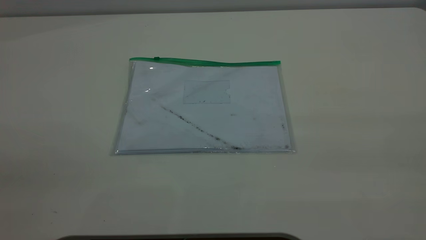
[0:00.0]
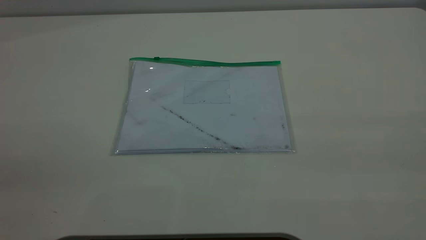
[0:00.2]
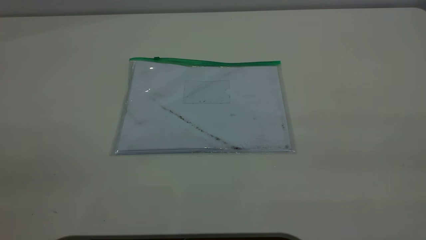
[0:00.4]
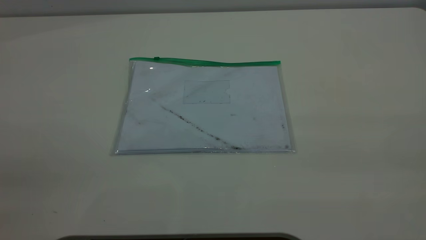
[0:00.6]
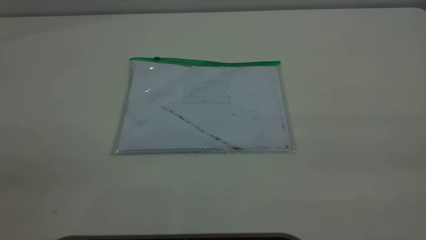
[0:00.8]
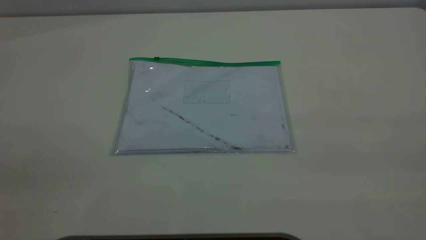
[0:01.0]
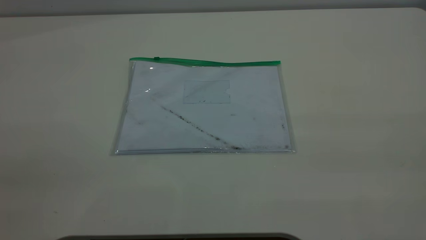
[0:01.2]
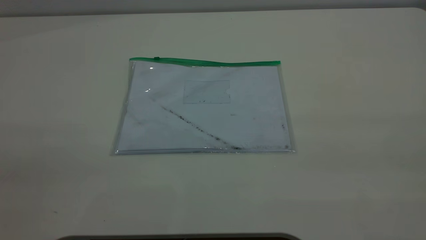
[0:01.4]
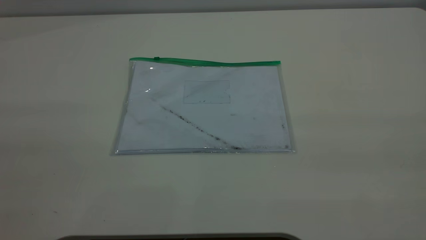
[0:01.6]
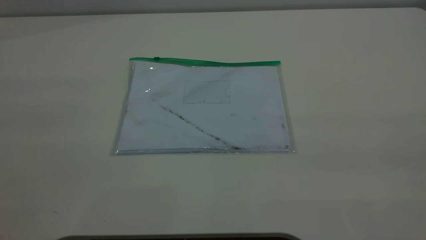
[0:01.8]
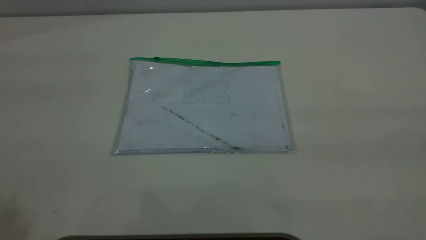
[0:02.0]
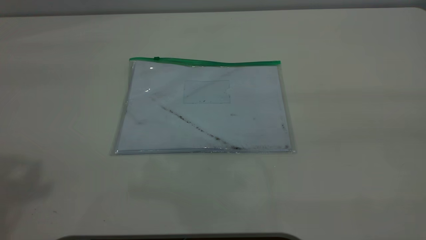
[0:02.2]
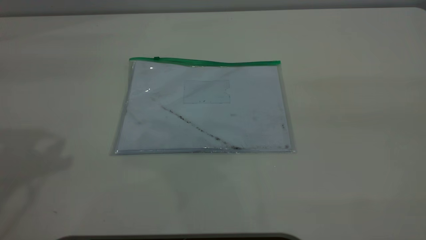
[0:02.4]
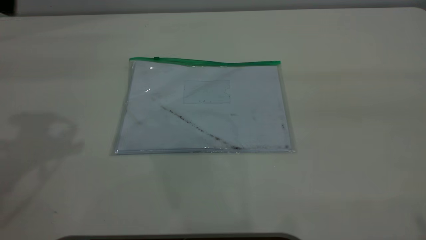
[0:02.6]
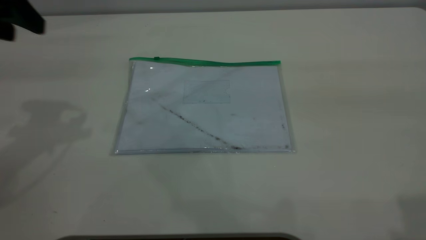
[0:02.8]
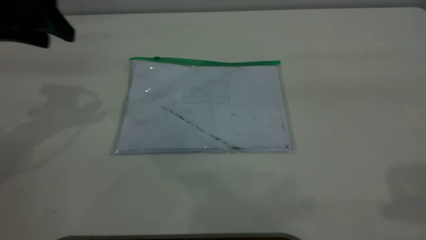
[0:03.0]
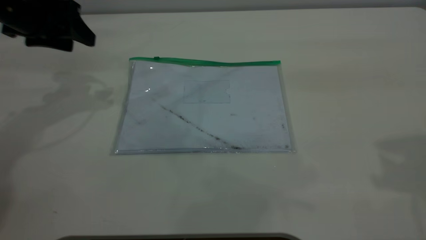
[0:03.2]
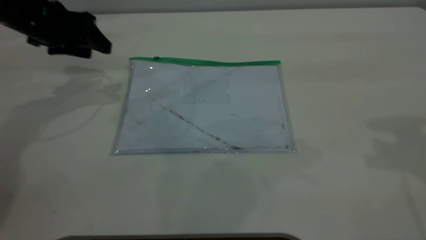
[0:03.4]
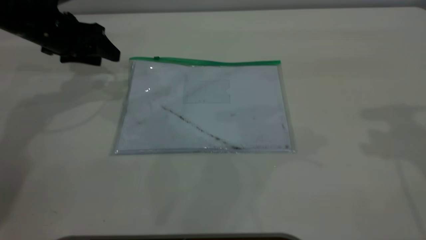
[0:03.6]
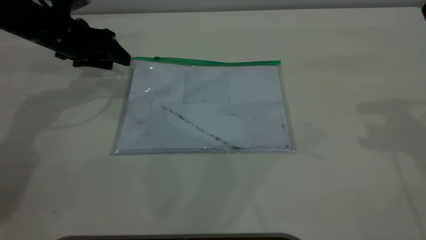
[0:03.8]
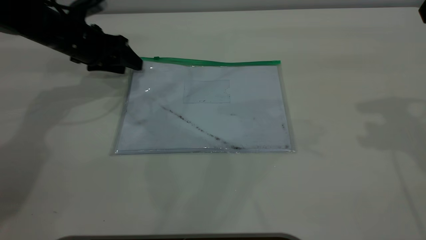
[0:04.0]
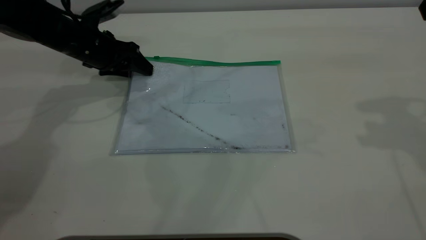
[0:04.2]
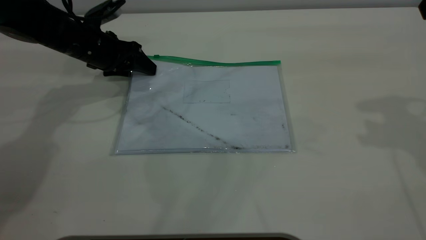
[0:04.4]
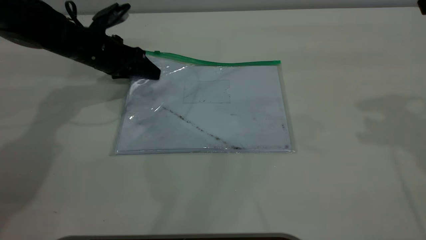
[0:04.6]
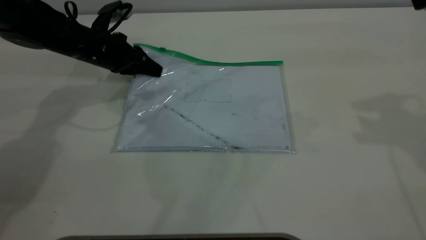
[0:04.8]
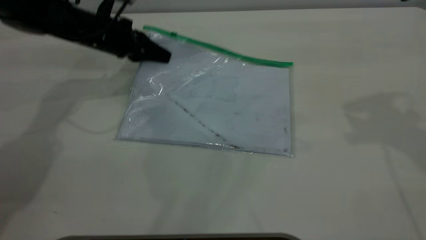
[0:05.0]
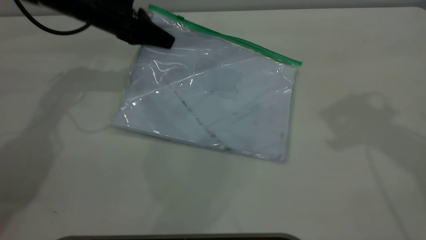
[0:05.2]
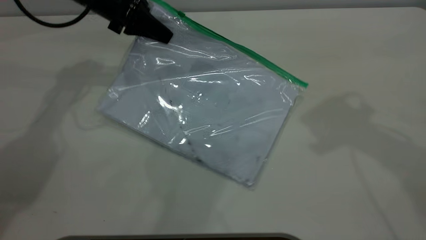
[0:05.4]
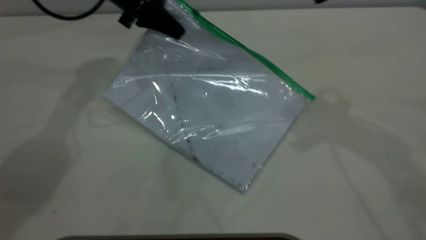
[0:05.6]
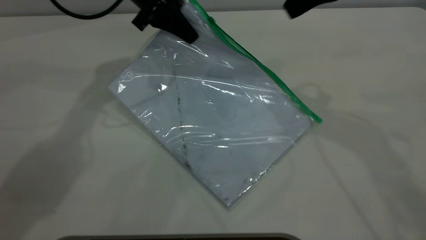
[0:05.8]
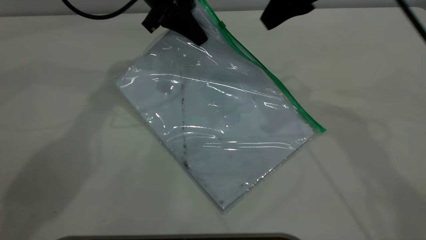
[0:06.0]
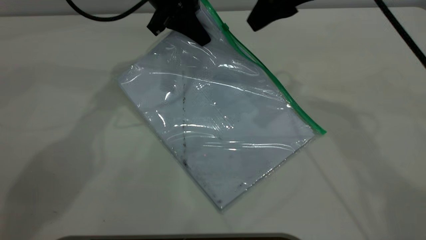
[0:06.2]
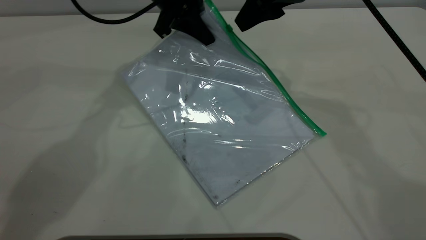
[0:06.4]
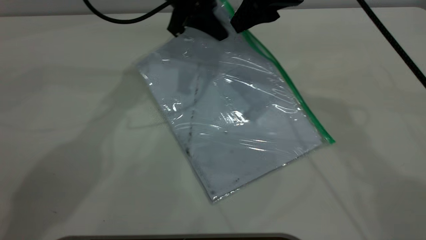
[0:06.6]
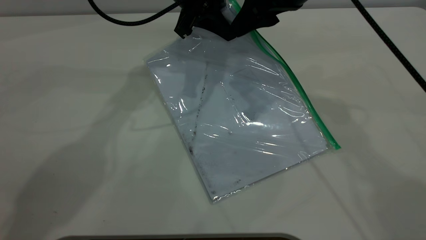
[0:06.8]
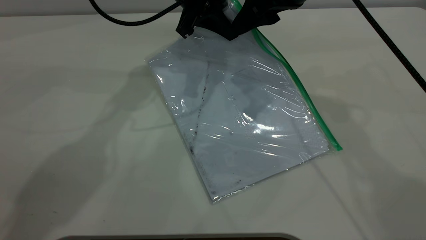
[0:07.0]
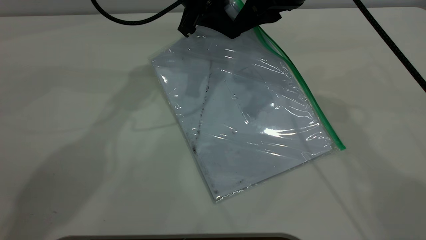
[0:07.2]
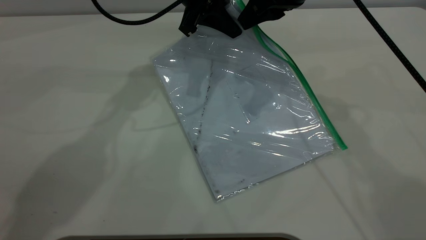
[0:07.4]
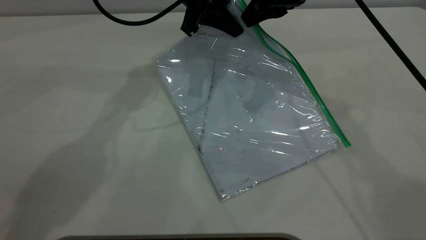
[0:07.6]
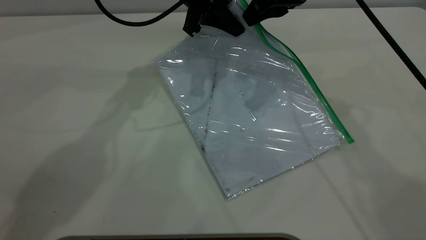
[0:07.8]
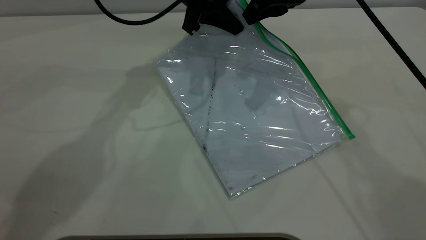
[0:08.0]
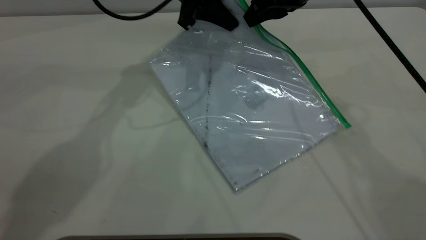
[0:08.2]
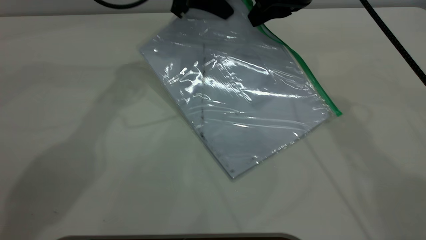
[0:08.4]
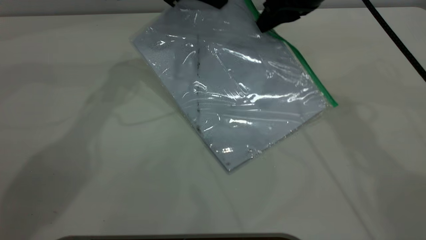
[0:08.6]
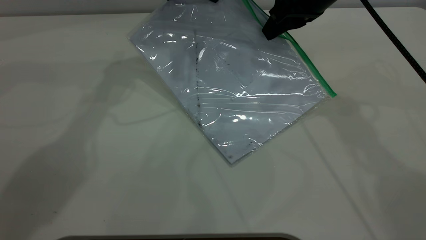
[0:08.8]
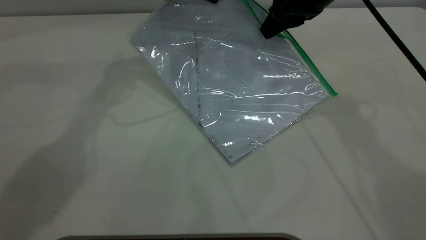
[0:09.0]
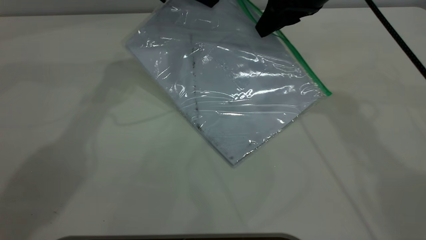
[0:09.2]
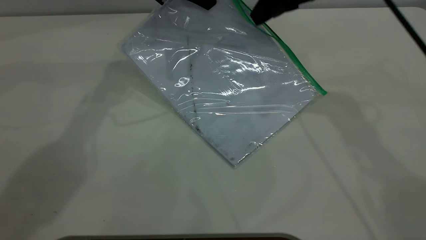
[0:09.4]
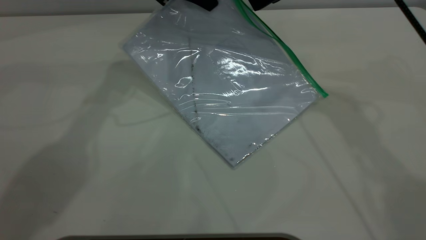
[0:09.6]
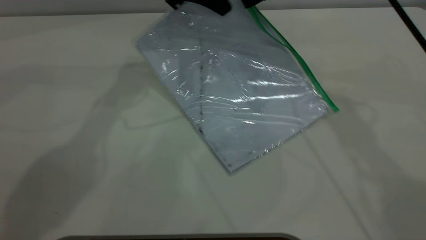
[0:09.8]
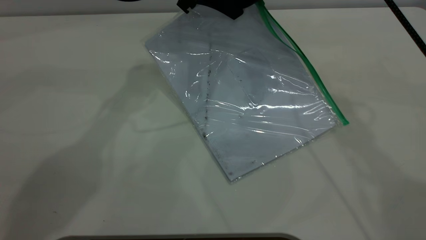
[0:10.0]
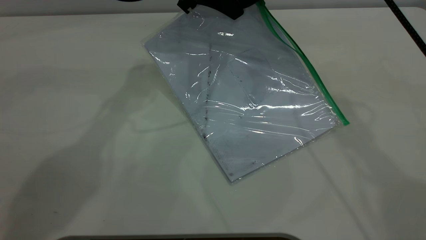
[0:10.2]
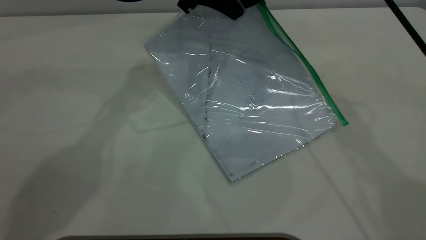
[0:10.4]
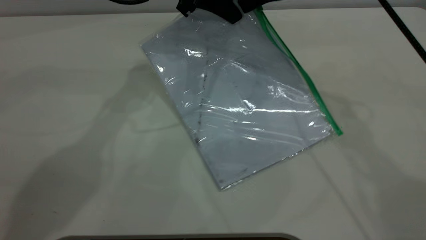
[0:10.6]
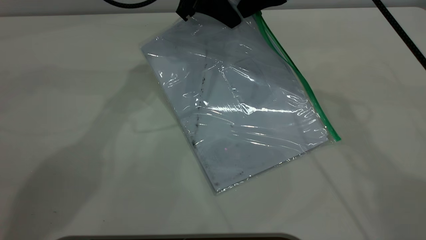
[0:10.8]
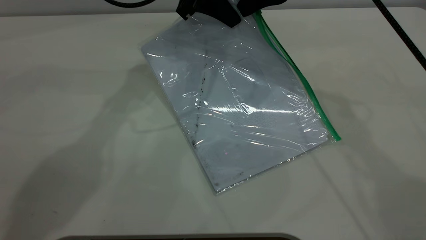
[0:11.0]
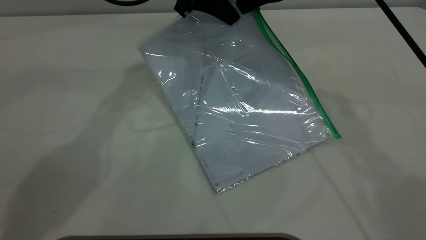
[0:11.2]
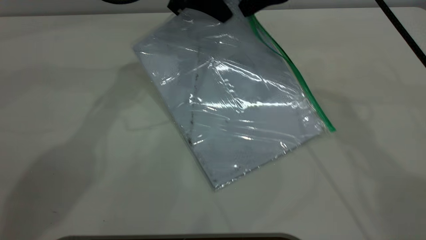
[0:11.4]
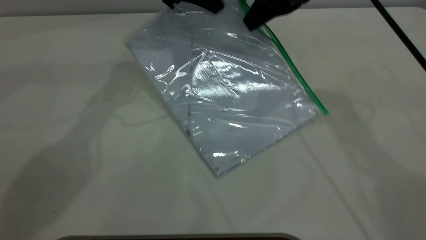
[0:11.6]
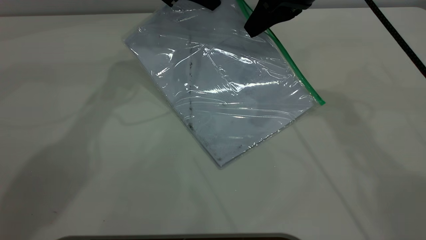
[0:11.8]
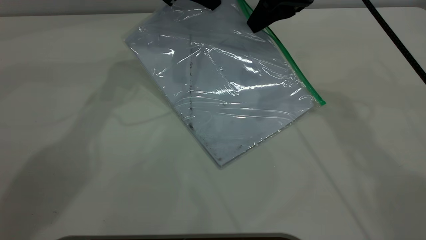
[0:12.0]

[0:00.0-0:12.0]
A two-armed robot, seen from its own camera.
Step, 0.0 to 5.2 s: Pick up the transparent plastic bag with the left gripper.
1.6 to 3.0 s: The left gripper shifts some 40 cm forward and downward.
3.0 to 4.4 s: The right gripper travels forward and downward by about 15 cm; the left gripper is displaced downward, forward and to the right by approximately 20 cm.
4.4 to 6.0 s: The right gripper goes some 15 cm to the left and forward; the left gripper heads to the right and upward, covering about 20 cm, and closes.
6.0 to 7.6 s: The right gripper closes up.
7.6 to 9.0 s: The left gripper changes place by about 5 cm.
9.0 to 10.4 s: The right gripper opens, then closes again.
10.4 to 12.0 s: The grippers move only a little.

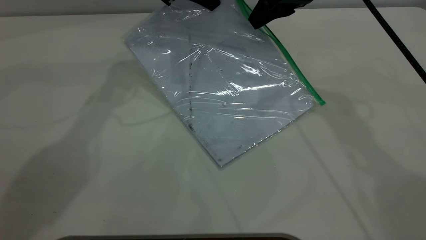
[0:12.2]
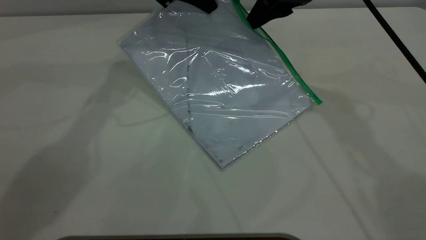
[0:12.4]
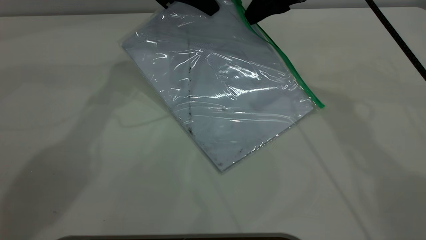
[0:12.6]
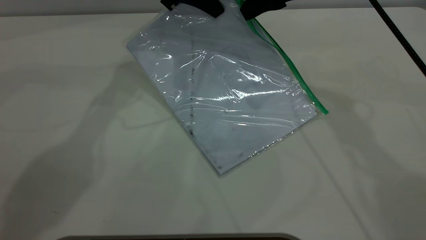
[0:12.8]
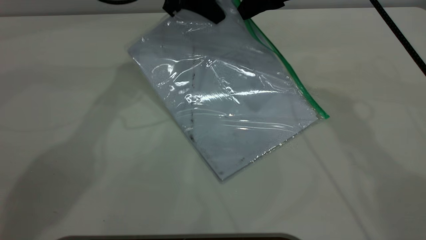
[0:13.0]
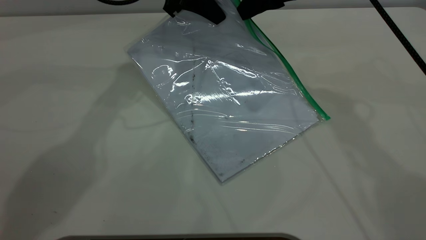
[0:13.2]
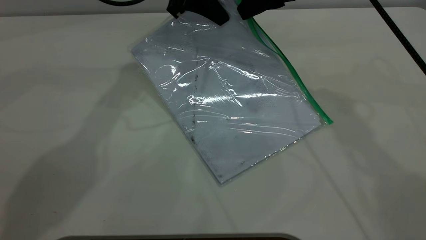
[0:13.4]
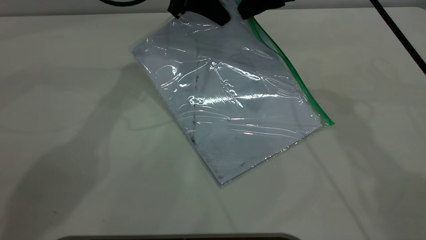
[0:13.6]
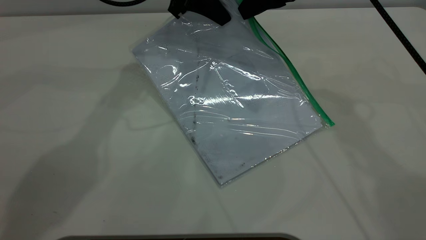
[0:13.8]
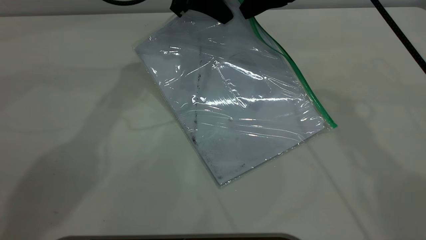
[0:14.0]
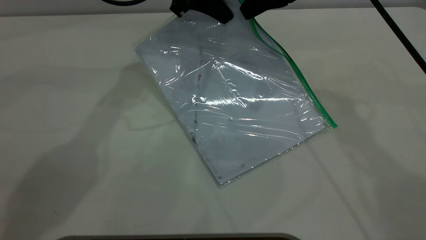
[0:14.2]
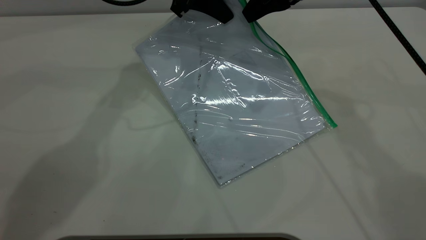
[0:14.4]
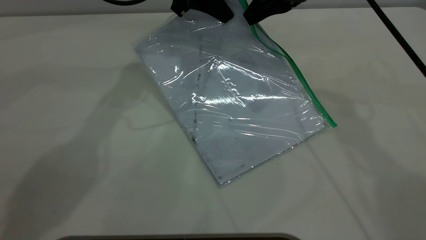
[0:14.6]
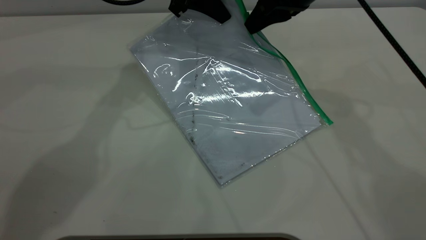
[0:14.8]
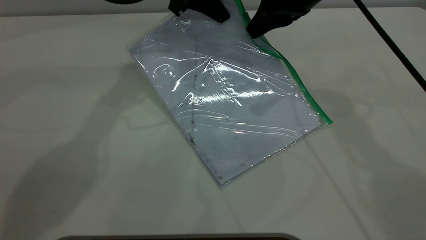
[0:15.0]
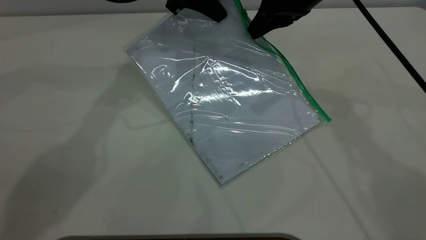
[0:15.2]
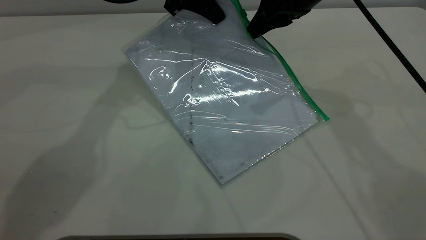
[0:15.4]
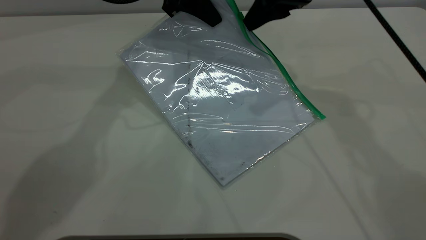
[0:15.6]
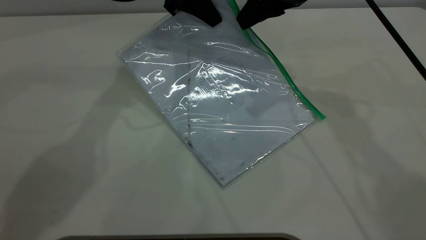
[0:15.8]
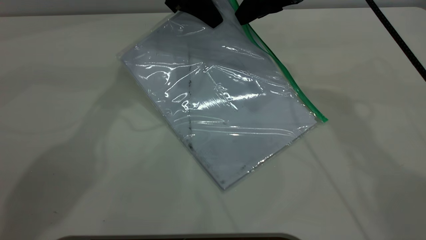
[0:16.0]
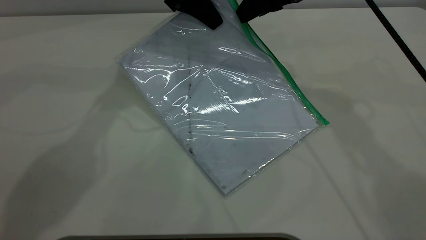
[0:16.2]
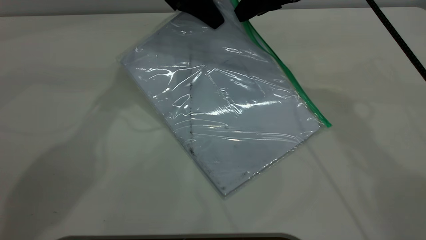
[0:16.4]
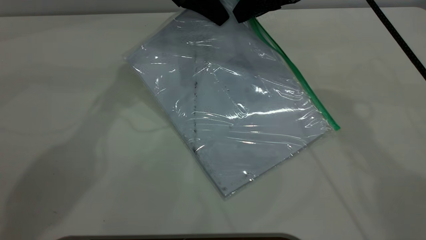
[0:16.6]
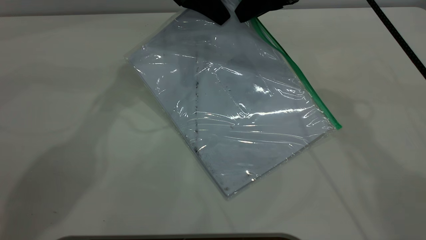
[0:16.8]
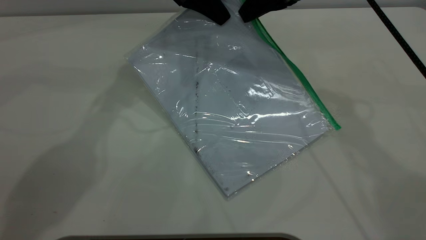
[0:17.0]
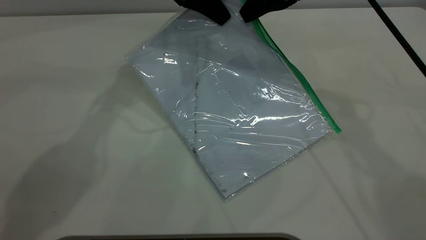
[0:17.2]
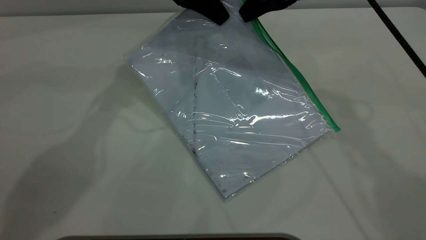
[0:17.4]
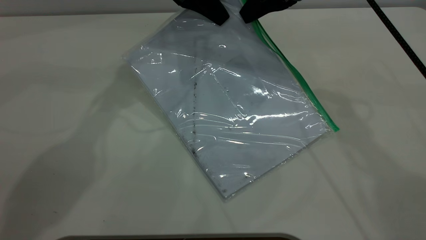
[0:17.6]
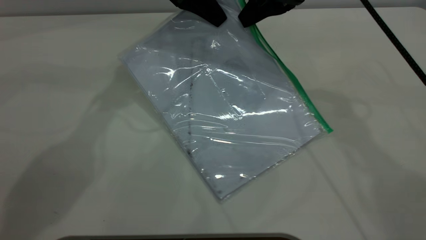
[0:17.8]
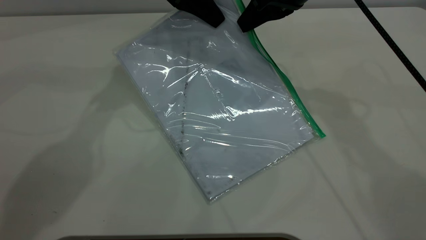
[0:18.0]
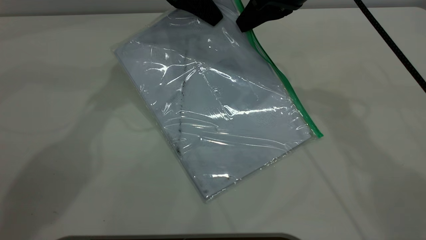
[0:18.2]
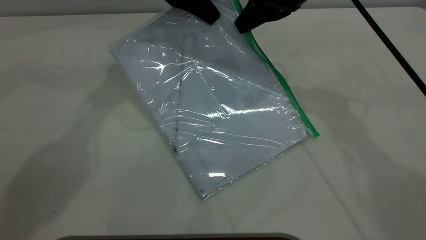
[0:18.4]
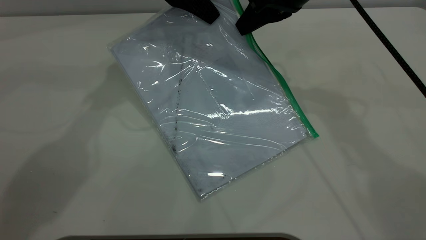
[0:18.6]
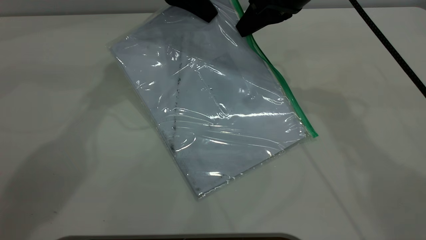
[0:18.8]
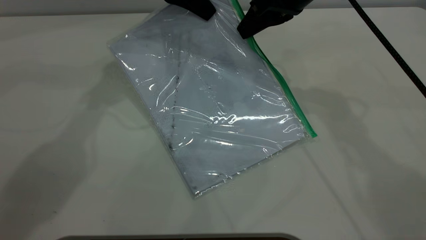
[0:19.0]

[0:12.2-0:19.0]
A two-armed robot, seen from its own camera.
12.2 to 13.6 s: The grippers move only a little.
13.6 to 15.0 s: The right gripper closes up.
15.0 to 16.2 s: The right gripper opens up.
16.2 to 17.6 s: The right gripper closes up.
17.6 to 19.0 s: The grippers stay close to where they were, moving slightly.
